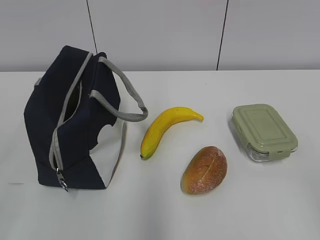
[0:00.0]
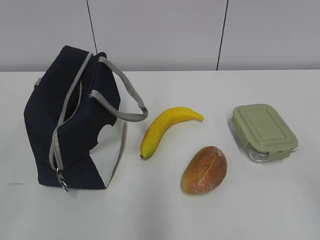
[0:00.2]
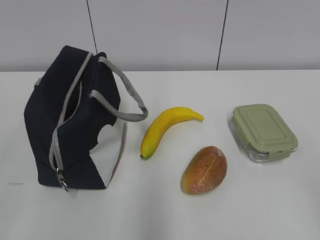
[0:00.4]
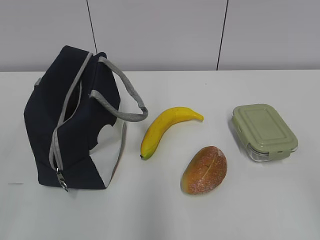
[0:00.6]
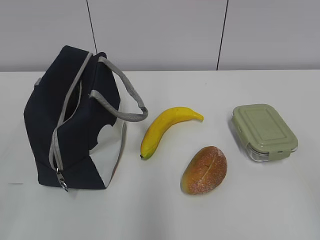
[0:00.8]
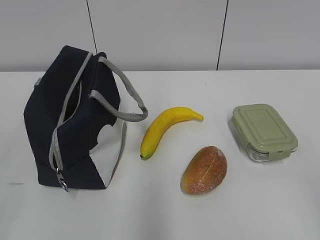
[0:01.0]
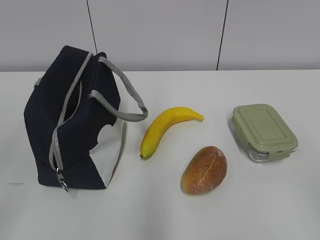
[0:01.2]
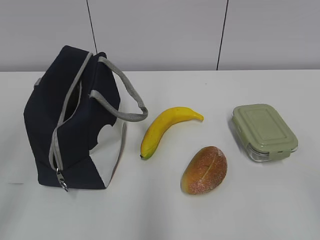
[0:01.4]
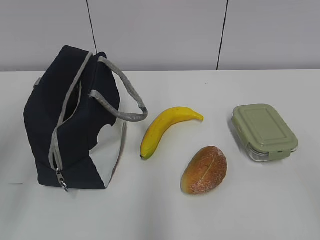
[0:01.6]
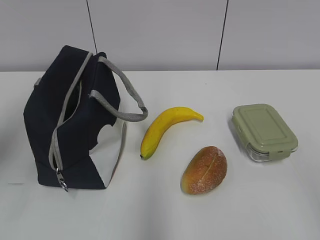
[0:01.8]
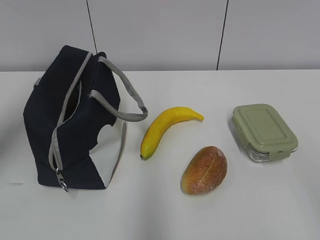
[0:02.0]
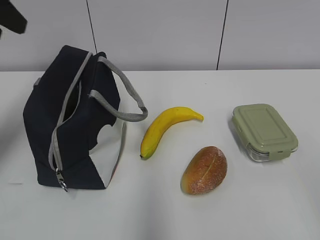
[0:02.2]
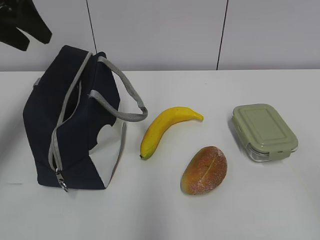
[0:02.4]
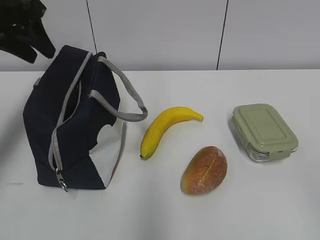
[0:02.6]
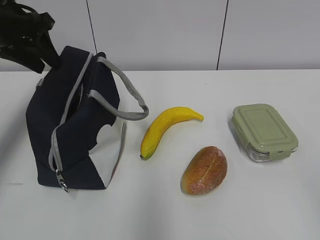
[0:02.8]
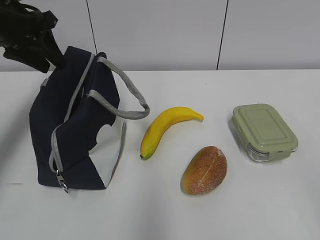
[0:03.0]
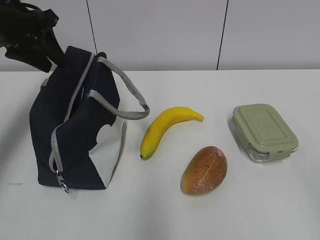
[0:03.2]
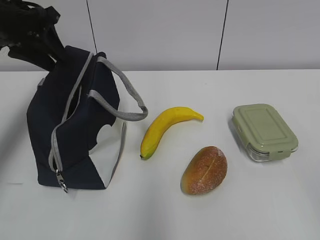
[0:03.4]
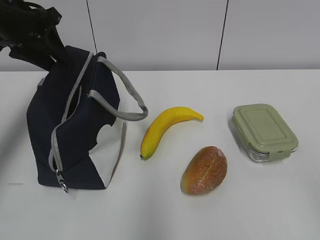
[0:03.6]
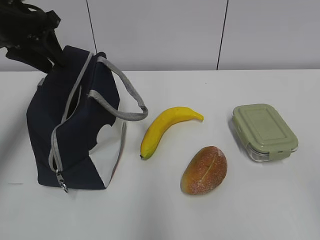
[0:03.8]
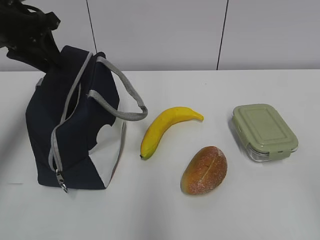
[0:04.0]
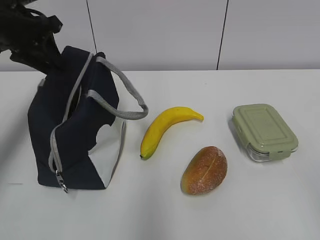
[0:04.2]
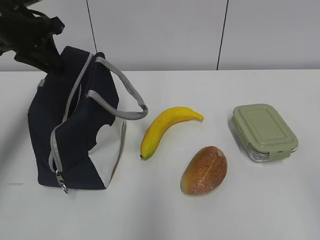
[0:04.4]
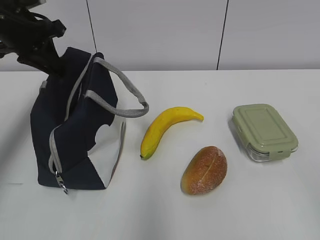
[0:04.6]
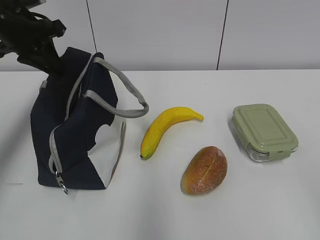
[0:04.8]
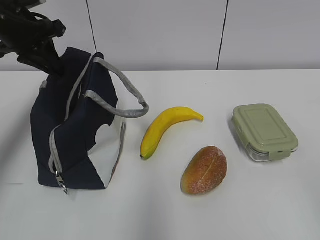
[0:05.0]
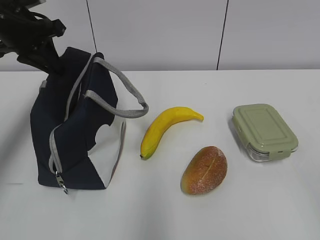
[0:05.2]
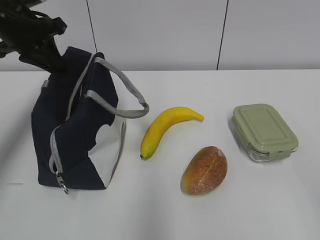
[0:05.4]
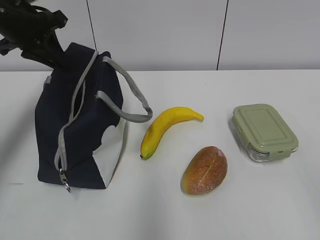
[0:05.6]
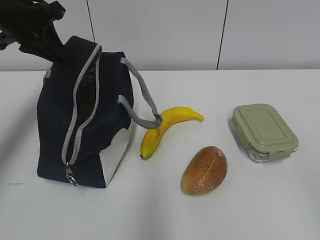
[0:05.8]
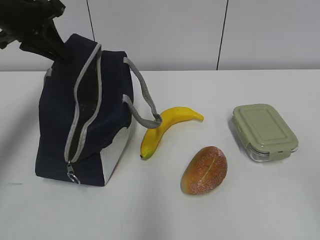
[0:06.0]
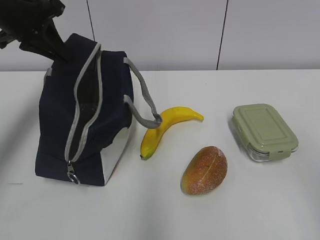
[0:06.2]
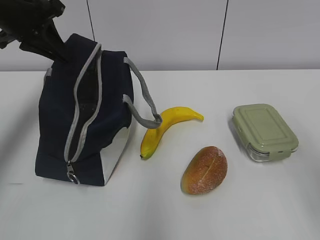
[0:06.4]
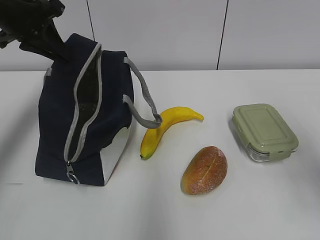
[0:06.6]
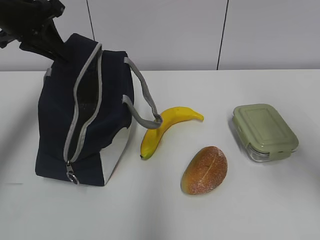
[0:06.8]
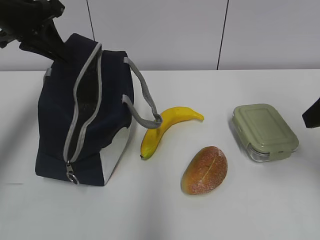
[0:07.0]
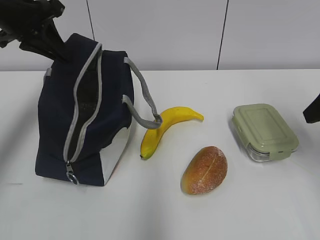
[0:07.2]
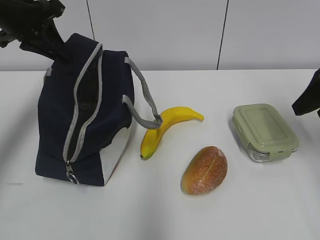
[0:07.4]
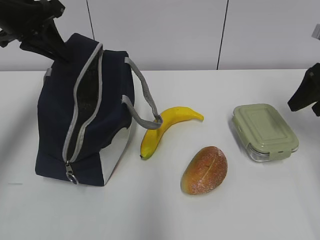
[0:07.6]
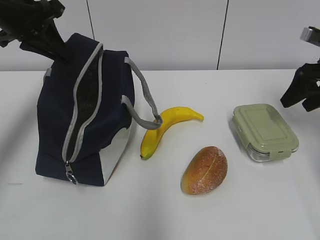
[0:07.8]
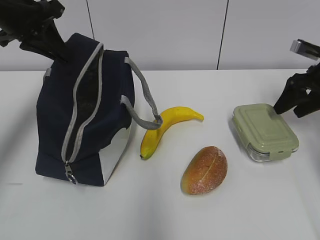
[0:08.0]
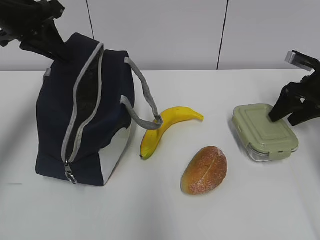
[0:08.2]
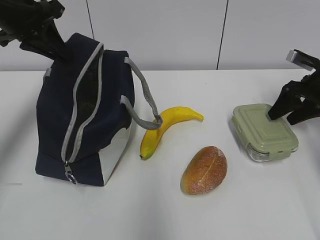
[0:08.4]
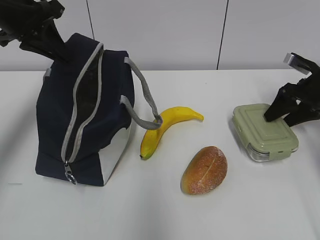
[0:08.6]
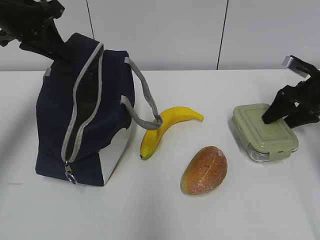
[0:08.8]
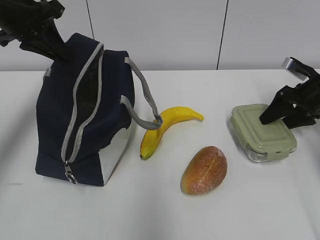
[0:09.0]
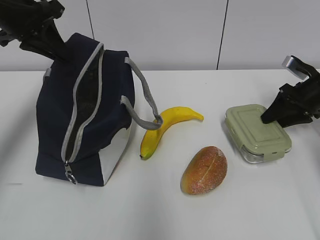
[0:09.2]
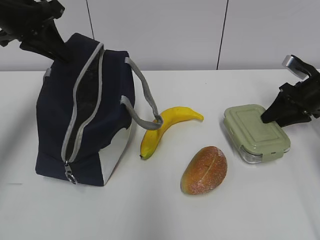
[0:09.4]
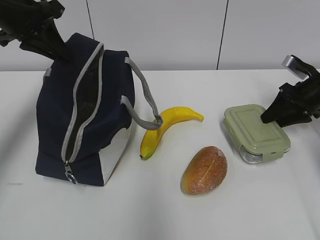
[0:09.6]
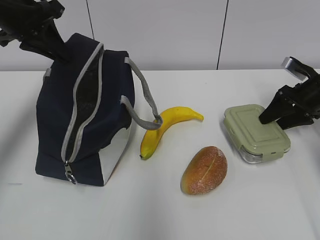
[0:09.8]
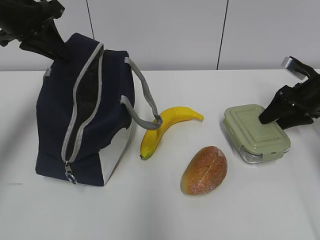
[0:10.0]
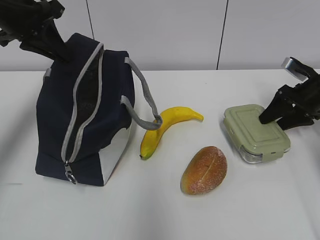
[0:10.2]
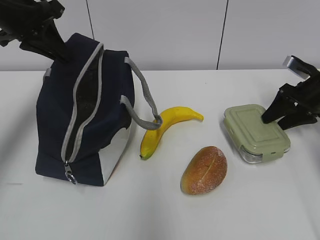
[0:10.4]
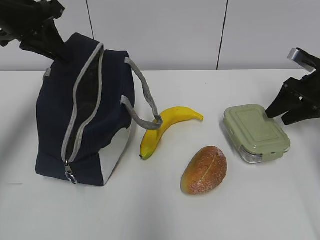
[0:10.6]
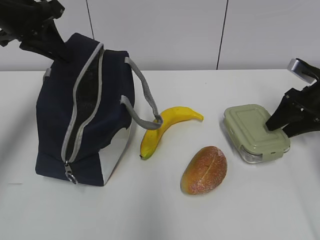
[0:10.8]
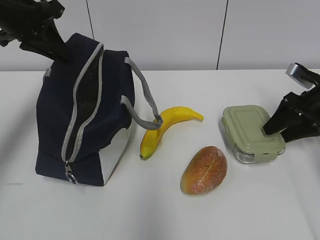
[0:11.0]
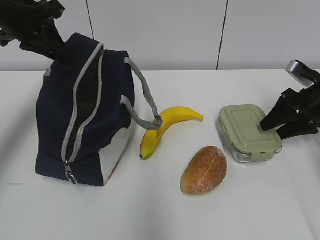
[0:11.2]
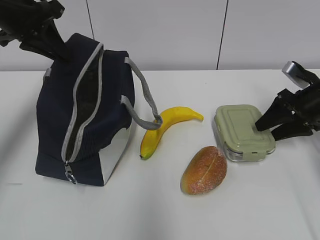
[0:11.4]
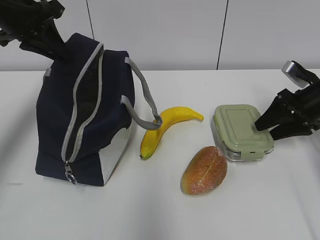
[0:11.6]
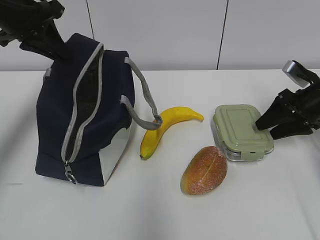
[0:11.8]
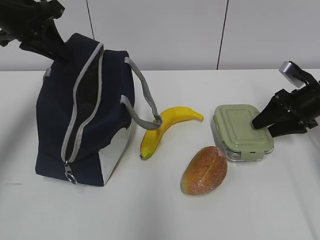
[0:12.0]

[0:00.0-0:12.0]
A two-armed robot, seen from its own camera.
0:01.6 to 0:03.0: The left gripper heads forward, covering roughly 30 cm, and closes.
0:03.0 to 0:04.4: The left gripper closes.
0:04.4 to 0:06.0: The grippers make only small movements.
0:06.0 to 0:07.6: The right gripper shifts approximately 35 cm forward, and opens its fingers.
0:07.6 to 0:09.0: The right gripper shifts about 15 cm downward and forward.
0:09.0 to 0:10.4: Both grippers stay about where they are.
0:10.4 to 0:12.0: The grippers stay close to where they were, moving slightly.

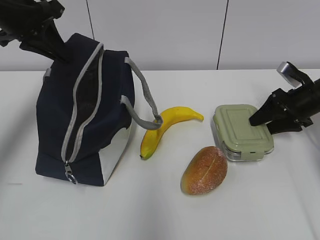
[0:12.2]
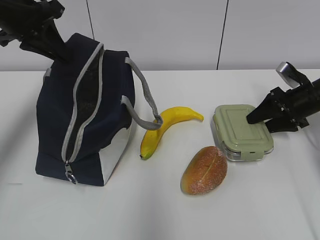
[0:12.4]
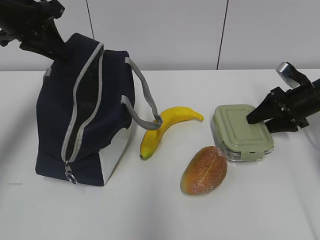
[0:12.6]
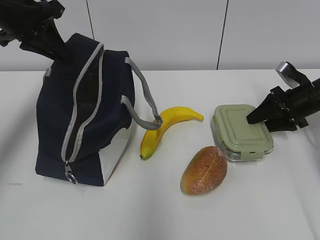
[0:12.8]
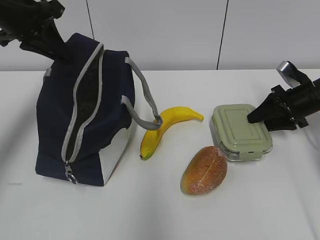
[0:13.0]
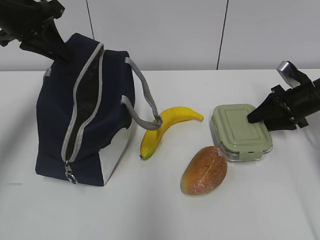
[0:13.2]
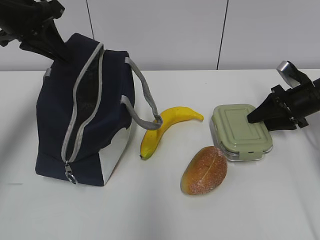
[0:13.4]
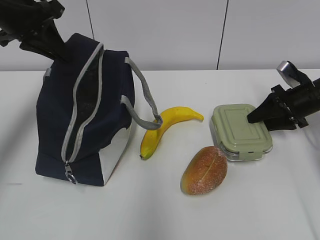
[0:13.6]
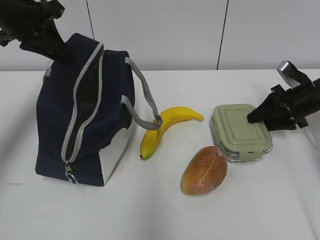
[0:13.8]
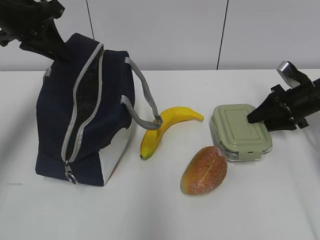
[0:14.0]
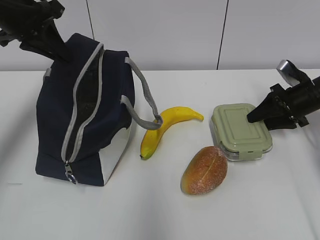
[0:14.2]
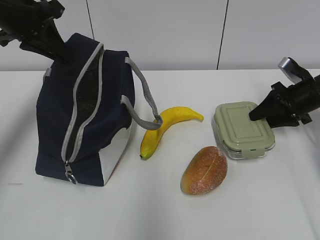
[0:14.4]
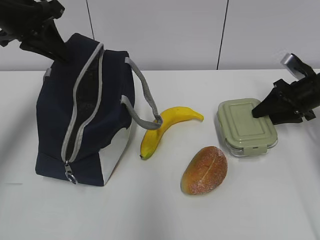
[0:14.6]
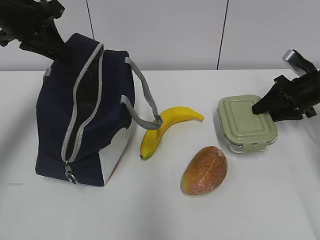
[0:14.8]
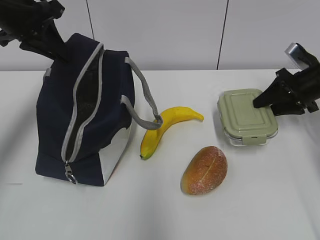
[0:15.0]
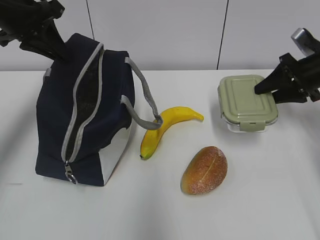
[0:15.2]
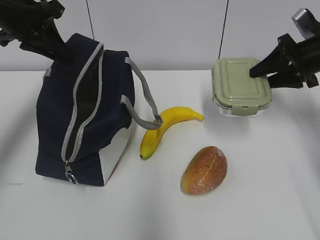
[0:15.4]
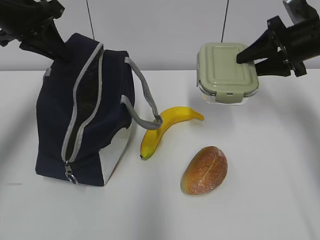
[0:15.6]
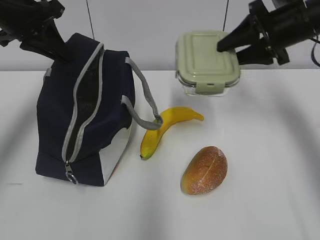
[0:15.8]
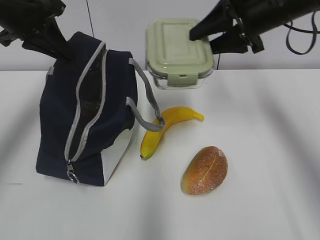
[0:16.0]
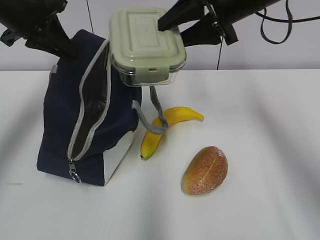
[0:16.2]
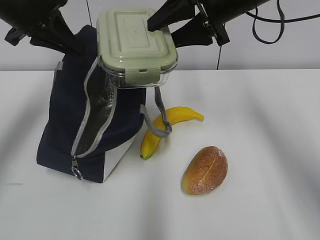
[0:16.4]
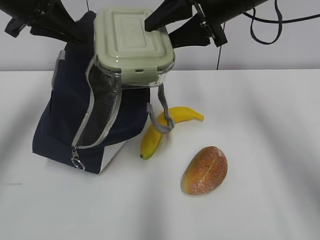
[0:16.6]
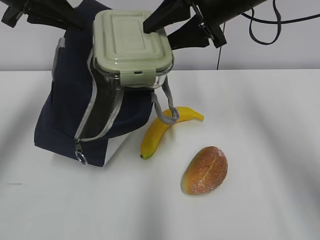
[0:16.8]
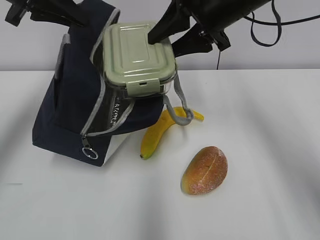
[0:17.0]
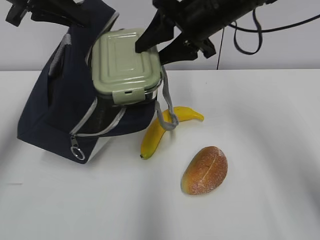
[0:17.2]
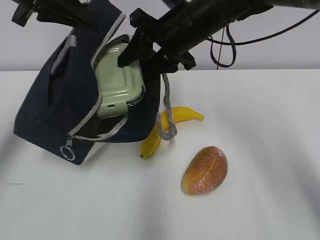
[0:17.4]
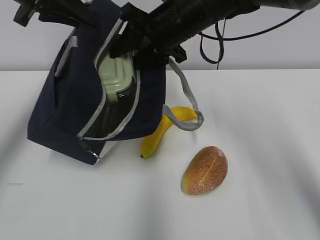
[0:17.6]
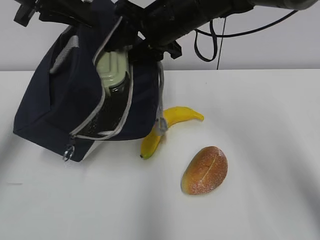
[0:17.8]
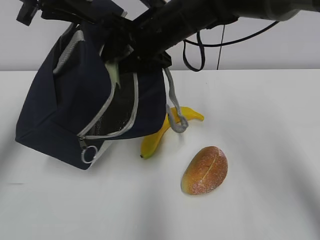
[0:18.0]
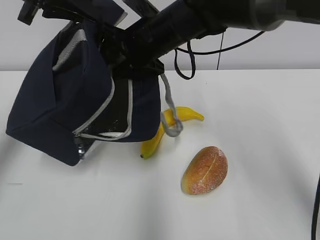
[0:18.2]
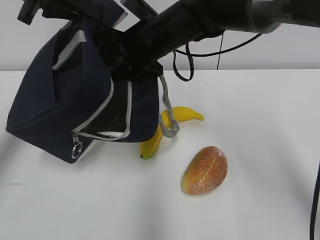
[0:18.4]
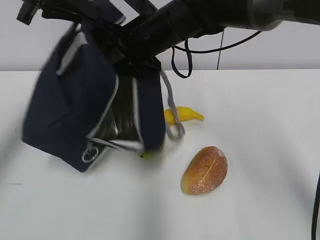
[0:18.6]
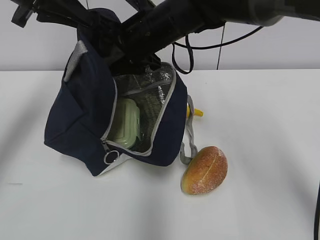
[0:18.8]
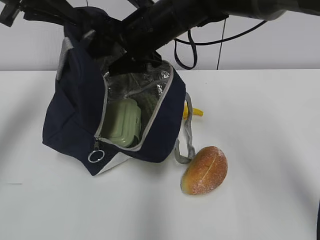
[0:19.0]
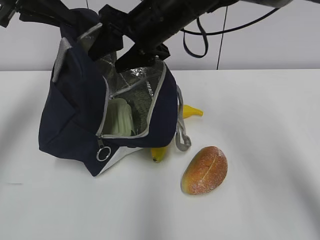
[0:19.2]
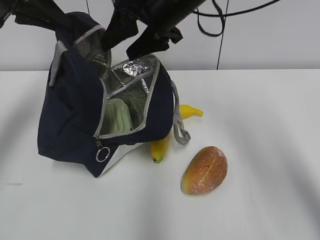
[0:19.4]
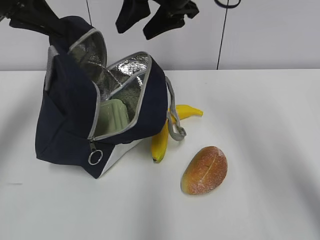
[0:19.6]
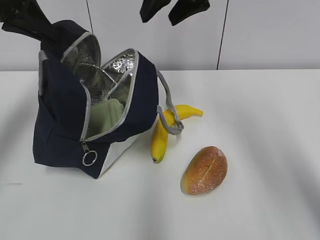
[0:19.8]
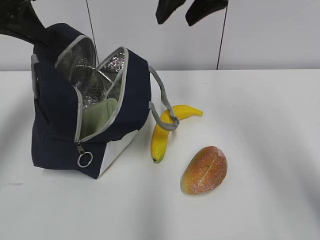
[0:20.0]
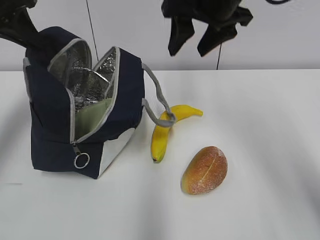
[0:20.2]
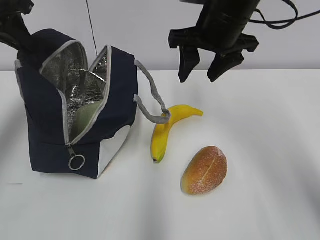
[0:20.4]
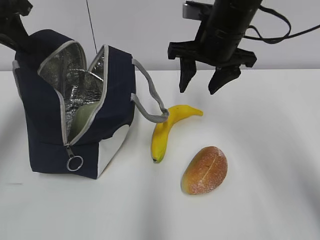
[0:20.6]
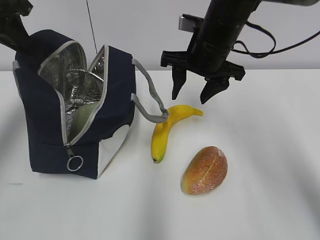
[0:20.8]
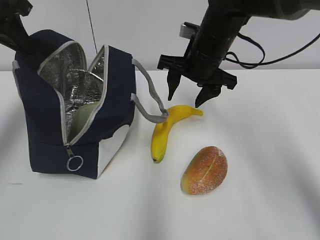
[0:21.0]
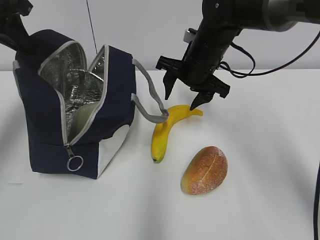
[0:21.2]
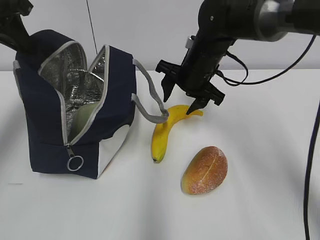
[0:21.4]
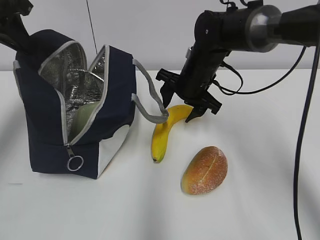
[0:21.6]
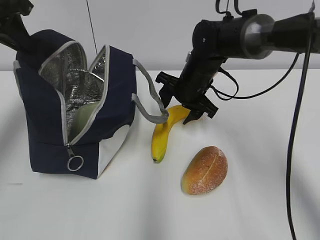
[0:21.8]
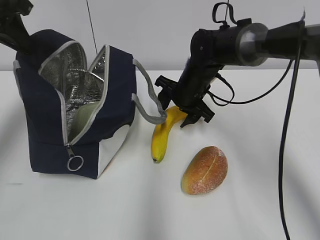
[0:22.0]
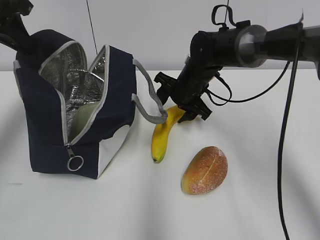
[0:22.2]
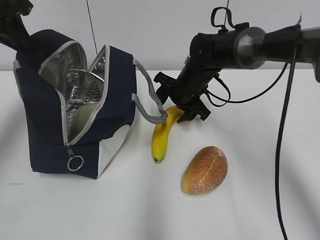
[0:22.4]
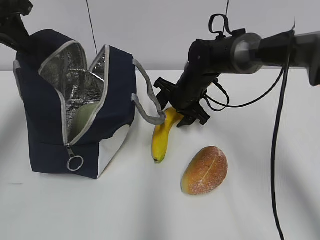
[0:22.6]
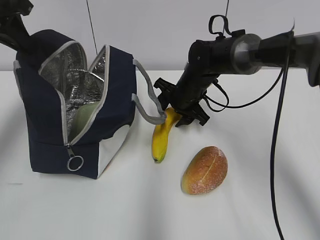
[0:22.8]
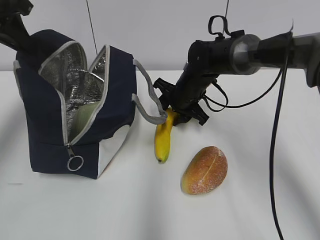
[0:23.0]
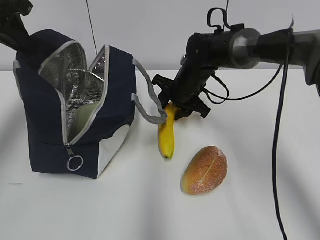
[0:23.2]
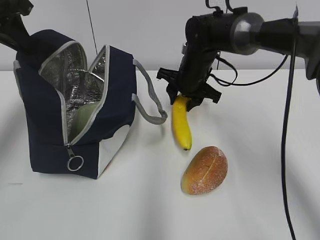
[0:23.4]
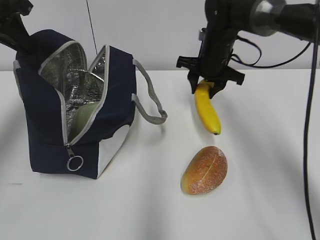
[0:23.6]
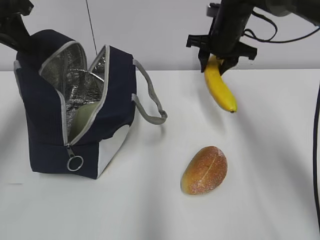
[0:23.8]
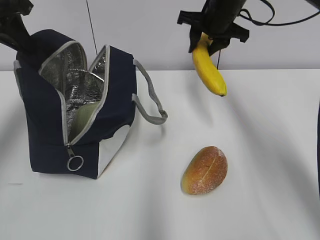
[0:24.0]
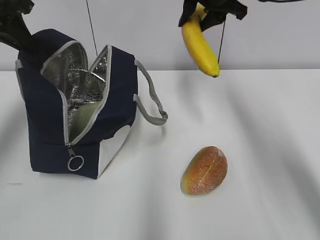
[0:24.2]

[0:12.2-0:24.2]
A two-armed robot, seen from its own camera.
0:12.2 to 0:13.8: Both grippers stay about where they are.
0:13.8 to 0:15.2: The right gripper shifts about 5 cm upward.
0:15.2 to 0:16.6: The right gripper is displaced to the left and upward by roughly 25 cm.
0:16.6 to 0:18.2: The right gripper travels to the left and downward by some 15 cm.
0:18.2 to 0:19.8: The right gripper heads upward and to the right, covering some 15 cm. The left gripper goes approximately 5 cm to the left.
0:19.8 to 0:21.2: The right gripper is displaced downward by approximately 15 cm.
0:21.2 to 0:22.6: The right gripper shifts about 10 cm downward.
0:22.6 to 0:24.2: The right gripper shifts about 20 cm upward.
